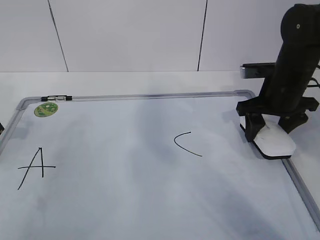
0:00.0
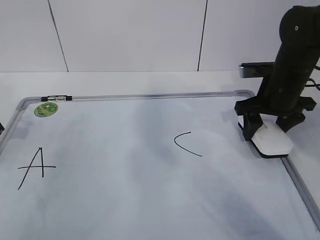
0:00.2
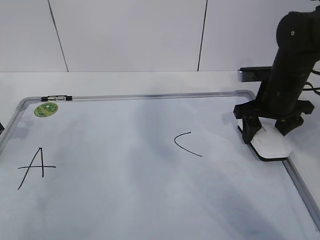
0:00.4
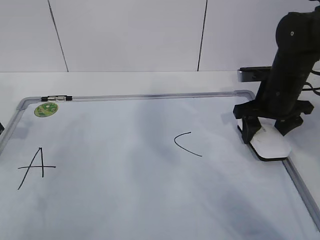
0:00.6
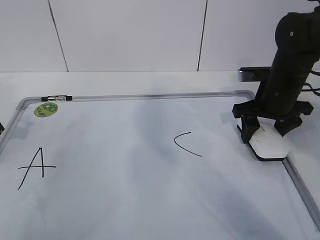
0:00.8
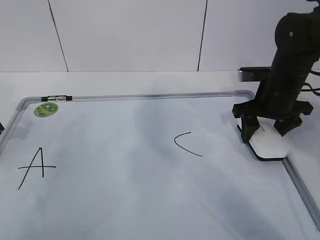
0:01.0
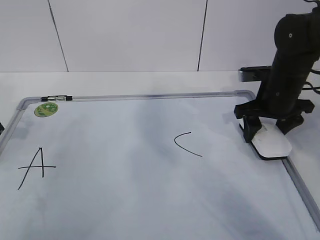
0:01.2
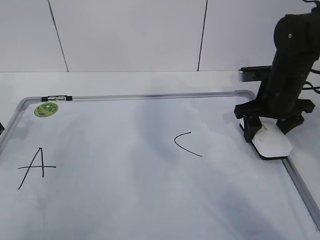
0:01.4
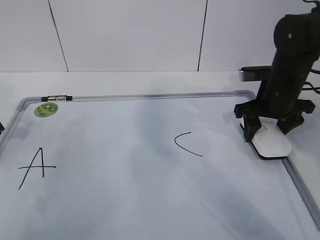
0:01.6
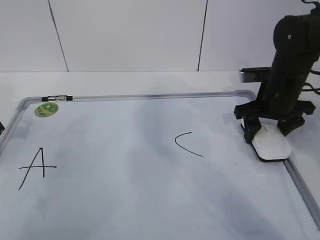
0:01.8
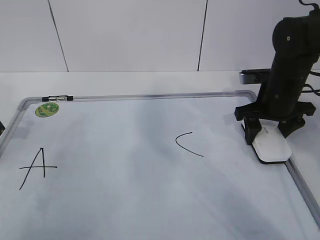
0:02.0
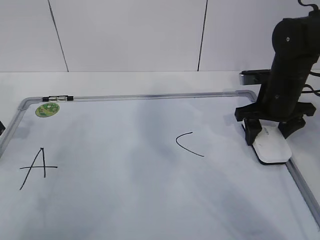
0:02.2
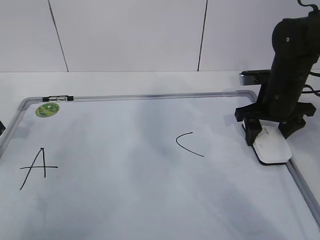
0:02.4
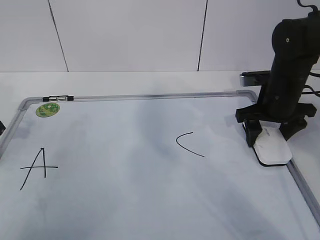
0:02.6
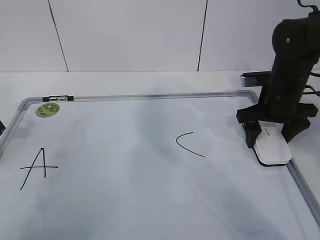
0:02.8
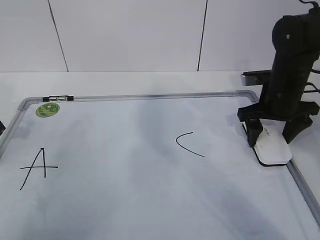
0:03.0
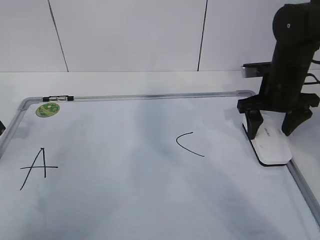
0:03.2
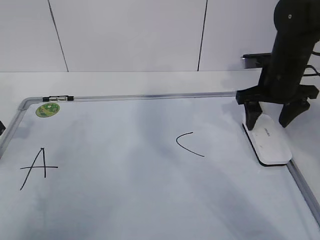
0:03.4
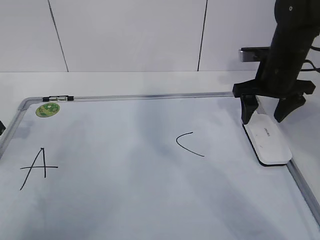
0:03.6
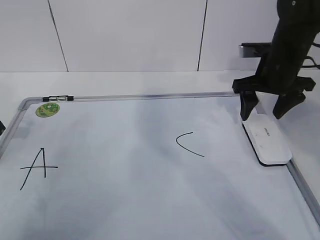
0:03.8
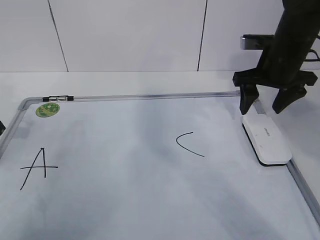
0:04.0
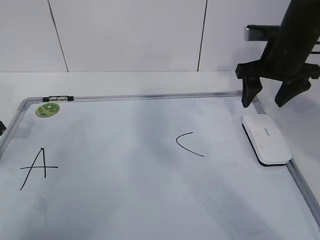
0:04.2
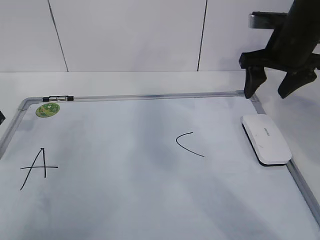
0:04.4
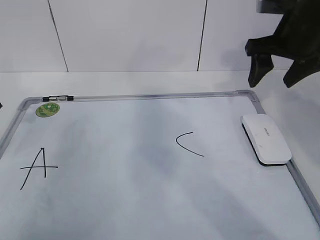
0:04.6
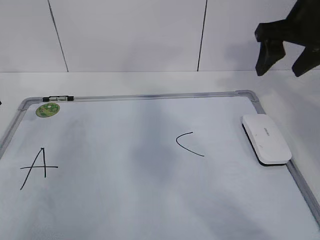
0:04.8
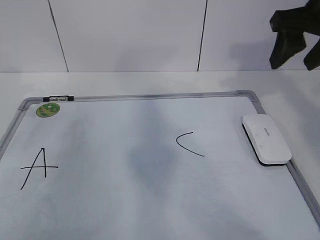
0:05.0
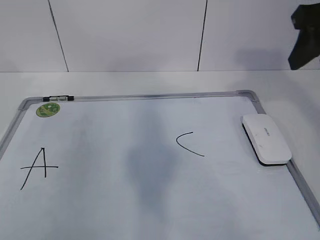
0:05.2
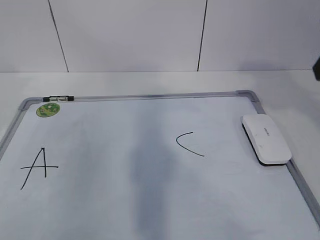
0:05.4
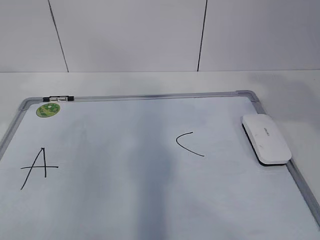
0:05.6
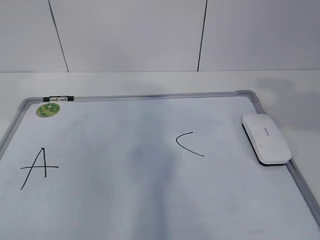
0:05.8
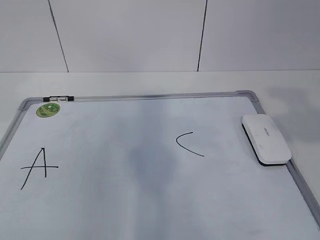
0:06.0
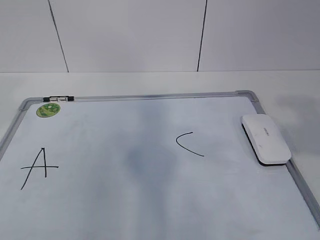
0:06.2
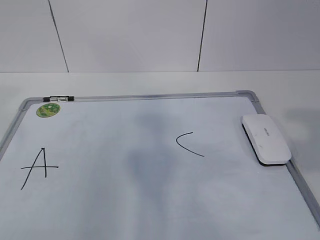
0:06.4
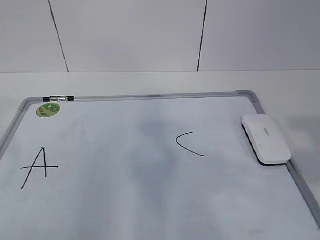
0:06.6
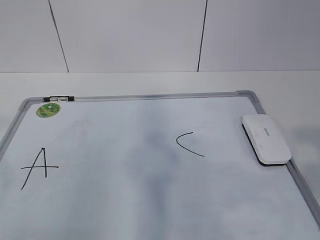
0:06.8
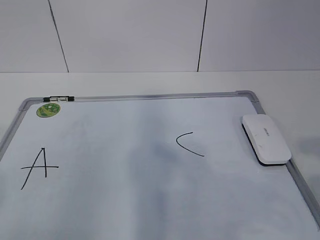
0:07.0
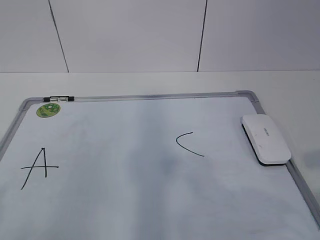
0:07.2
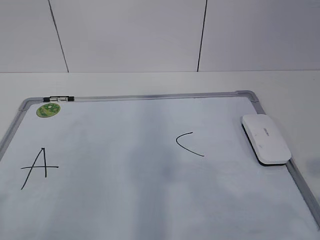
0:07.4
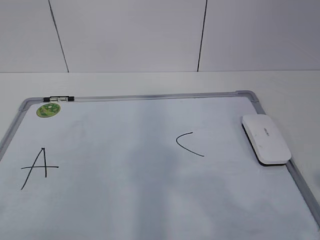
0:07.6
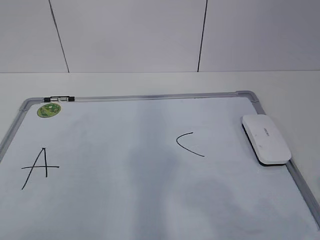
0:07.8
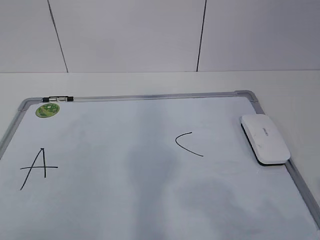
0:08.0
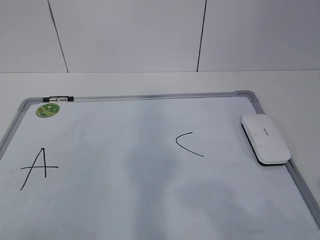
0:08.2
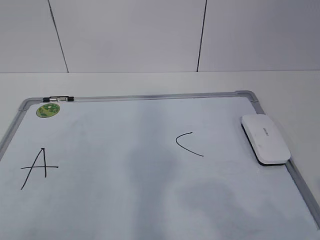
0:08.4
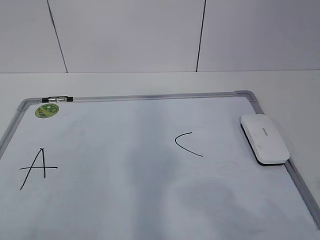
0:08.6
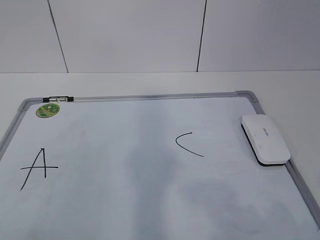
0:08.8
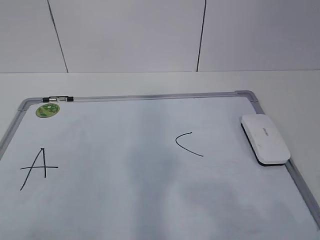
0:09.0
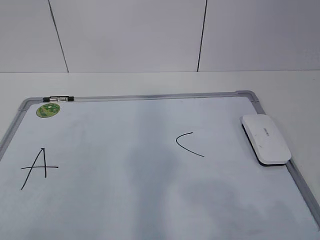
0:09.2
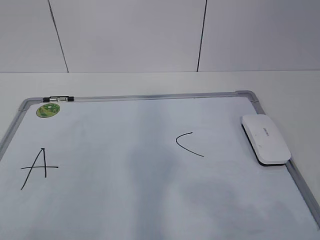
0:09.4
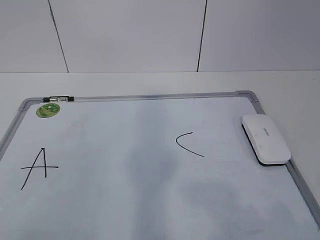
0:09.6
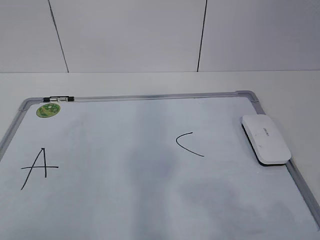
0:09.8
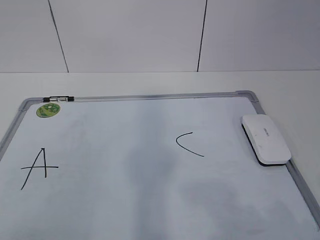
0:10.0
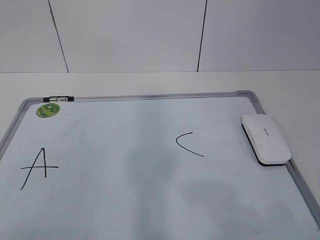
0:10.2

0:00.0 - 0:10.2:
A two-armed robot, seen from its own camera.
Task of the whole recording: pick up the eraser on the blackboard and erase the letter "B".
0:00.0 - 0:01.4: The grippers make only small movements.
0:01.4 - 0:03.0: The right gripper opens its fingers.
0:03.0 - 0:04.4: The right gripper shifts approximately 10 cm upward.
0:04.4 - 0:05.8: The left gripper heads upward and backward, covering approximately 20 cm. Meanwhile the right gripper is displaced backward and upward by approximately 25 cm, and closes up.
0:05.8 - 0:07.2: The right gripper goes about 15 cm backward and downward.

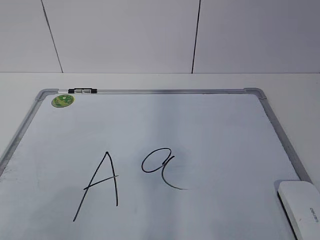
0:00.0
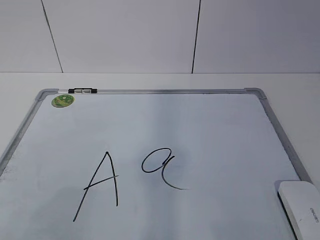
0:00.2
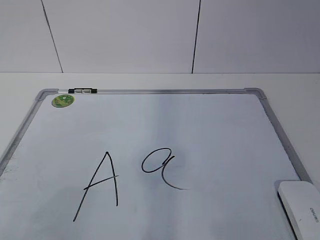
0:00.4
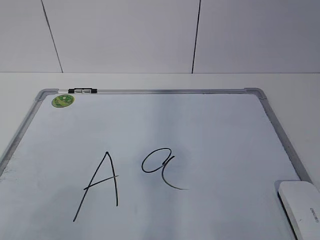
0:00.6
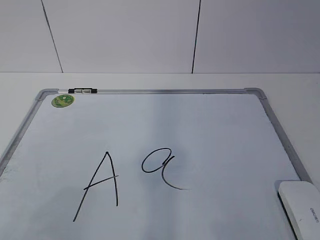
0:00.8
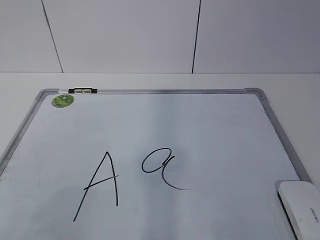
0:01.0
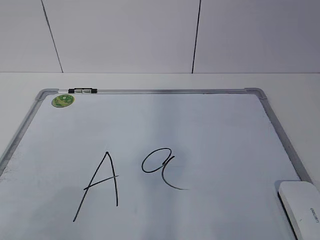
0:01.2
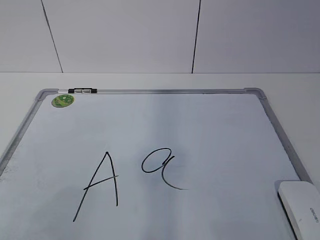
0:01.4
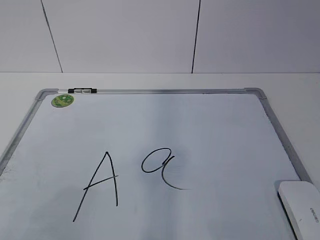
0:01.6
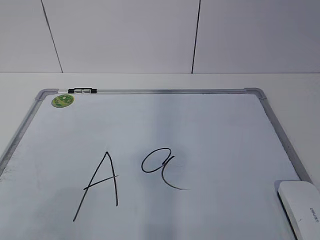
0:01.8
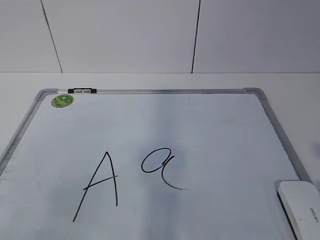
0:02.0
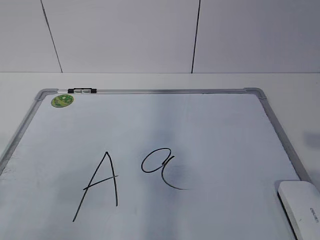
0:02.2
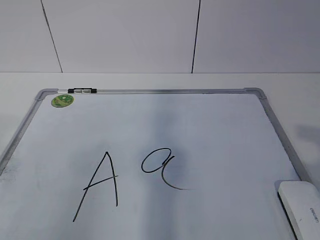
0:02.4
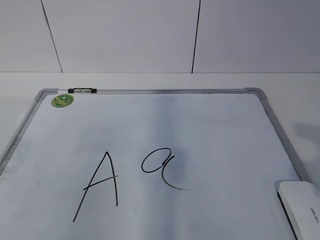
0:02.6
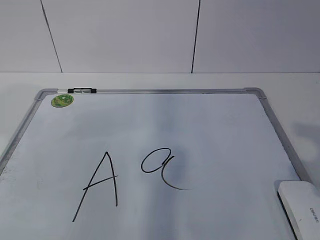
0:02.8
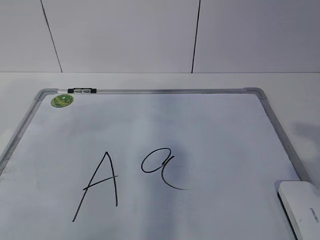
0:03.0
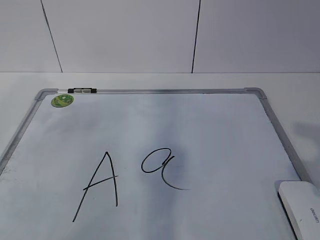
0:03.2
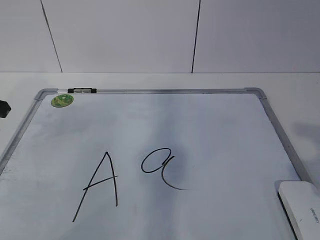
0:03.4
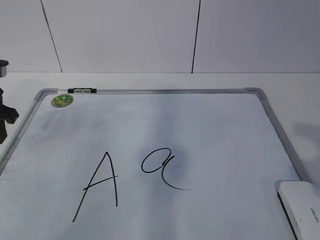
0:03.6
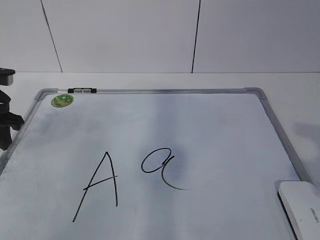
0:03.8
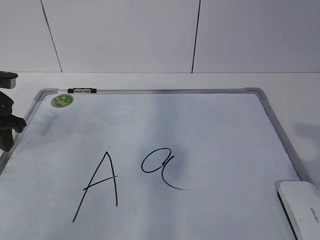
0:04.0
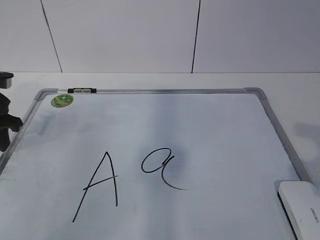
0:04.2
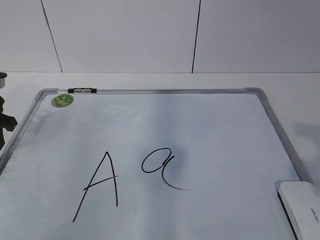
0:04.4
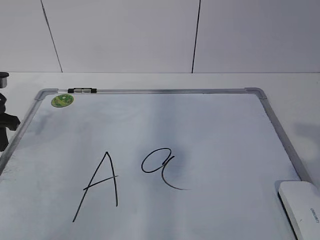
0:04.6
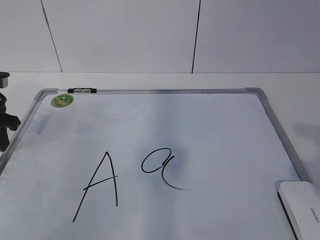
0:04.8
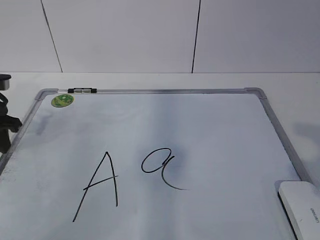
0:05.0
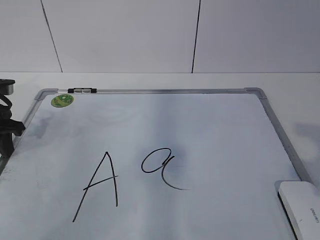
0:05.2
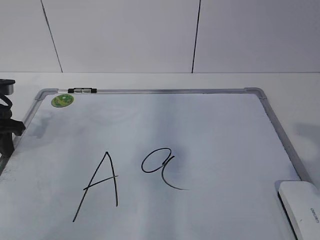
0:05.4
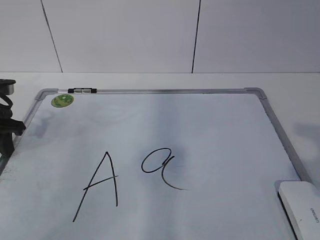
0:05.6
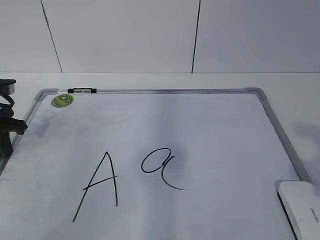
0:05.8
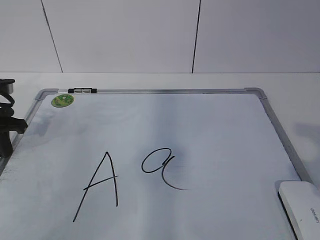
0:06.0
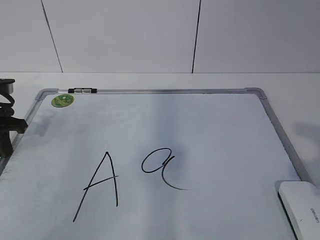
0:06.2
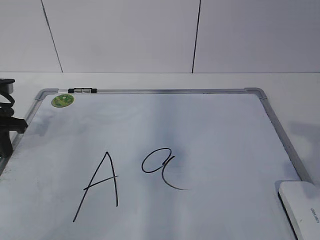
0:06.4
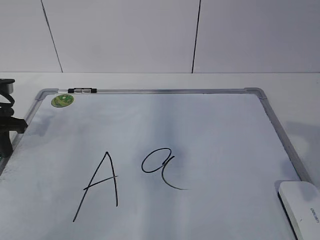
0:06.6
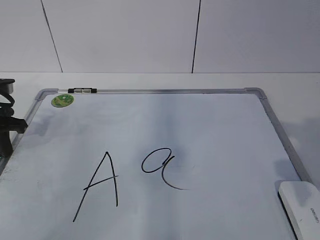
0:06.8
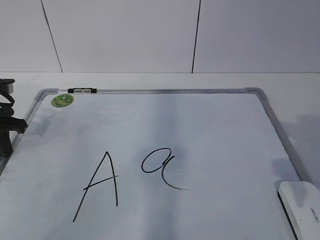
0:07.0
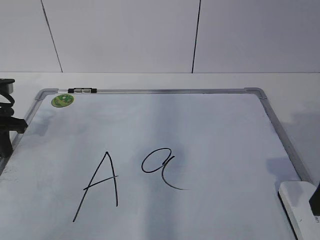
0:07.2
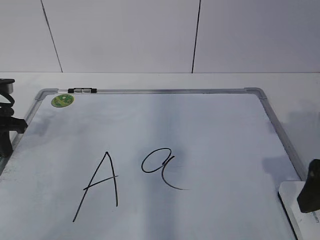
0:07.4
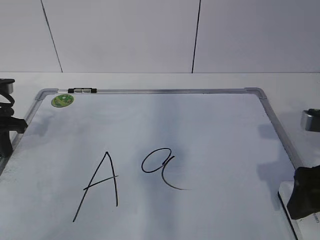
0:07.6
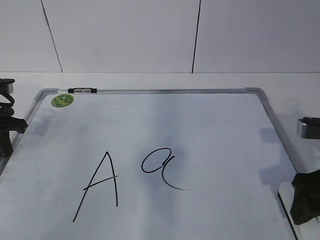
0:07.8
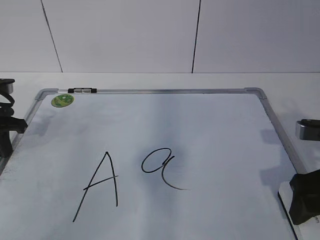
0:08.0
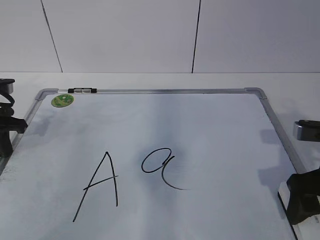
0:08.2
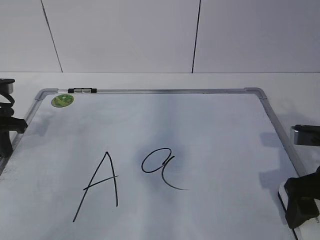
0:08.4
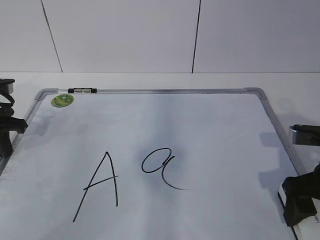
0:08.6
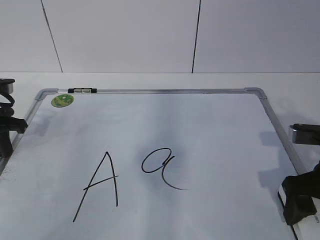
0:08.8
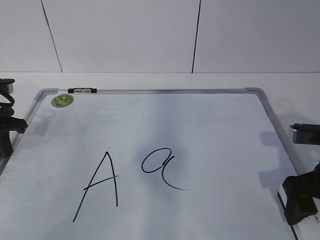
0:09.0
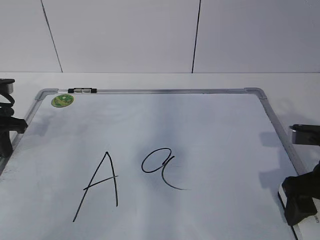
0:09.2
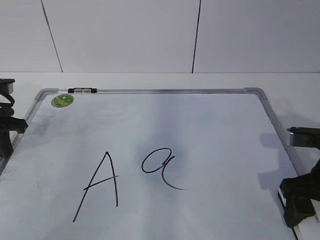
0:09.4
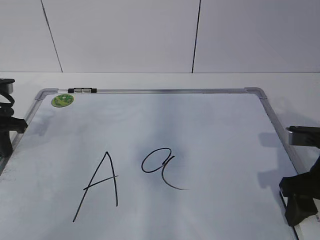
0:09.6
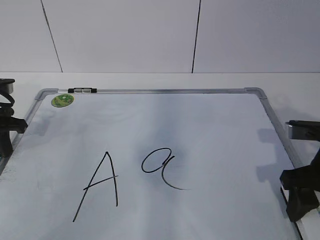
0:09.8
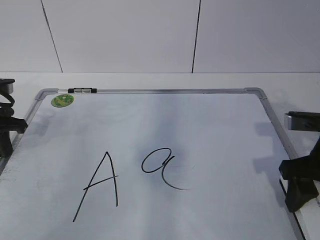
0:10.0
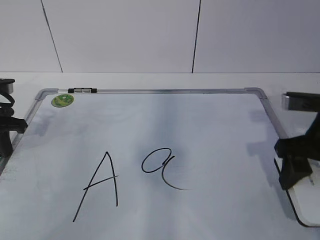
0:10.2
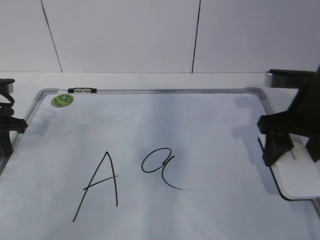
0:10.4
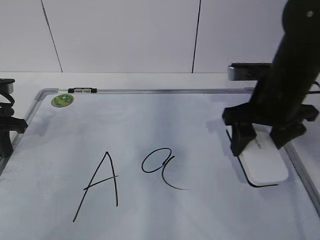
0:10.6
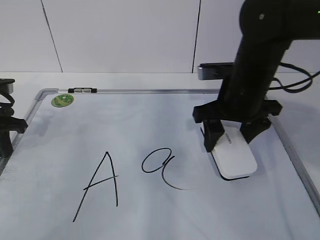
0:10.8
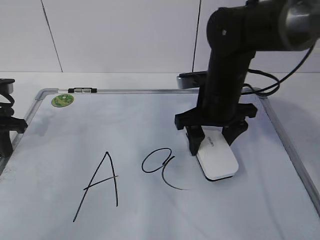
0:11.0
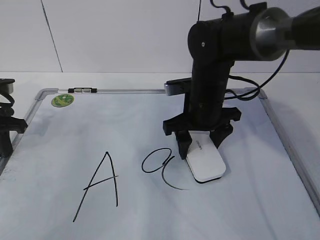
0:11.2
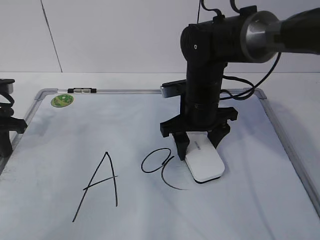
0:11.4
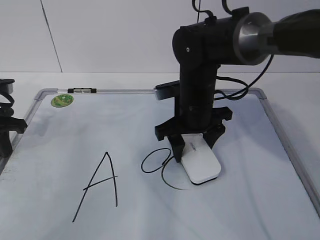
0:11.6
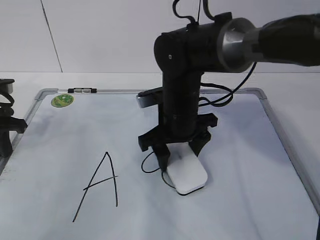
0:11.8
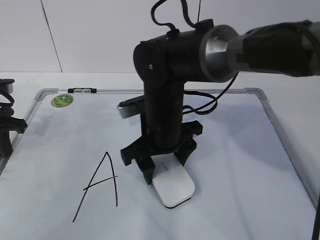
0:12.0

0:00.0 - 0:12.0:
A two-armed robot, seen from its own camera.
Task of the whole recording: pick up the eraser on the blackboard and erase the letter "a".
Step, 0:00.0 - 0:04.8: Hold the drawing board steady with your left hand.
Step, 0:05.0 - 0:07.8: Grab the eraser with your right hand.
0:01.6 - 0:03.0: The right gripper travels forward by approximately 10 cm.
0:03.0 - 0:04.4: The left gripper goes roughly 15 cm downward and forward.
0:04.4 - 0:06.0: The left gripper closes its fingers.
0:06.0 - 0:07.6: The right gripper goes roughly 15 cm forward and downward, and opens.
0:07.6 - 0:09.0: The grippers move only a little.
0:09.0 - 0:10.4: The right gripper heads forward and upward, covering about 10 cm, and closes up.
0:10.4 - 0:12.0: The right gripper is displaced to the left by some 20 cm.
